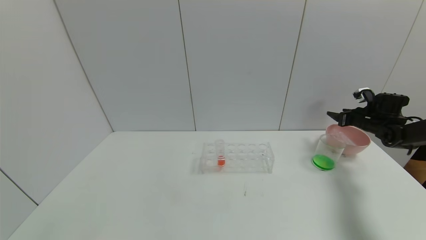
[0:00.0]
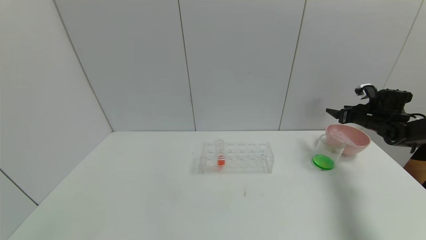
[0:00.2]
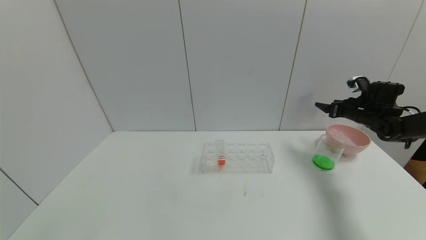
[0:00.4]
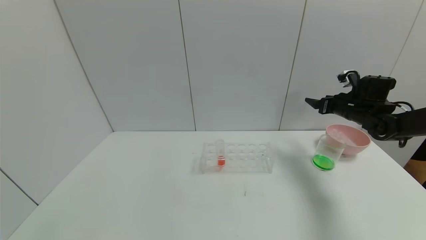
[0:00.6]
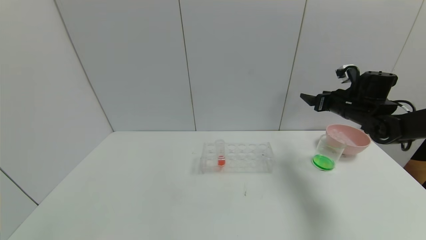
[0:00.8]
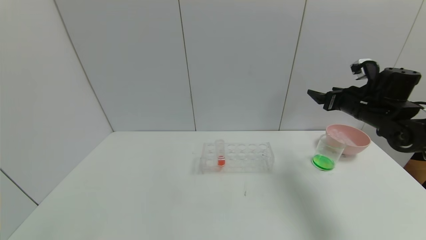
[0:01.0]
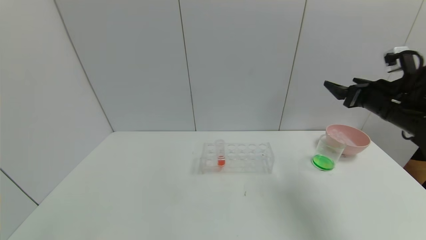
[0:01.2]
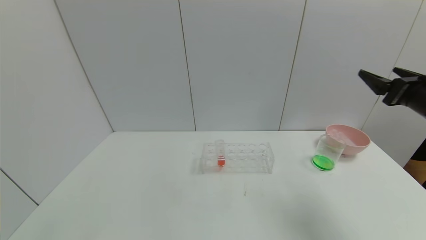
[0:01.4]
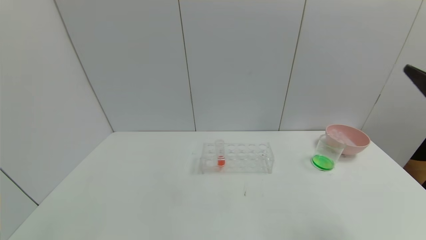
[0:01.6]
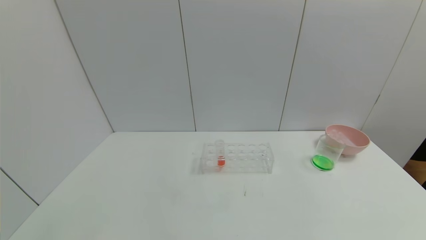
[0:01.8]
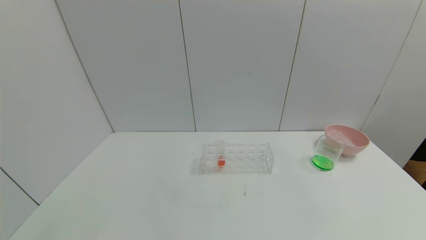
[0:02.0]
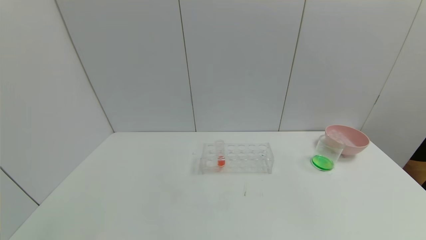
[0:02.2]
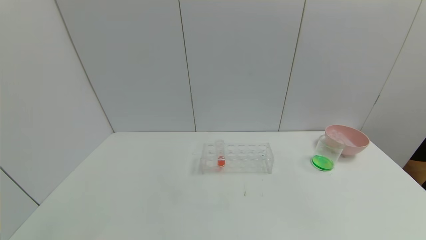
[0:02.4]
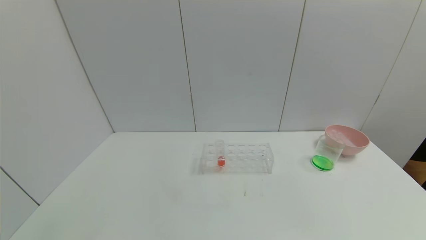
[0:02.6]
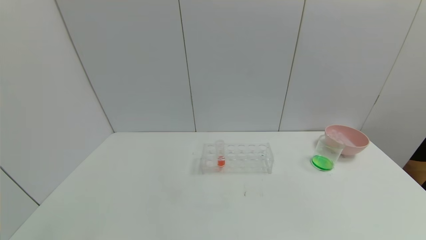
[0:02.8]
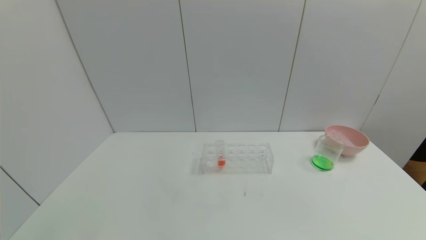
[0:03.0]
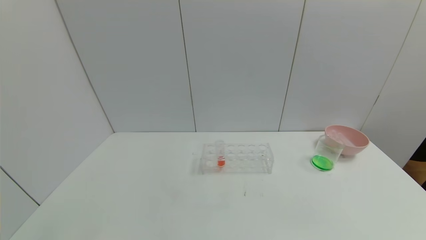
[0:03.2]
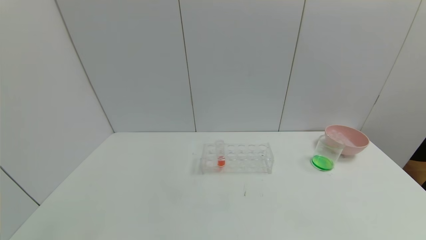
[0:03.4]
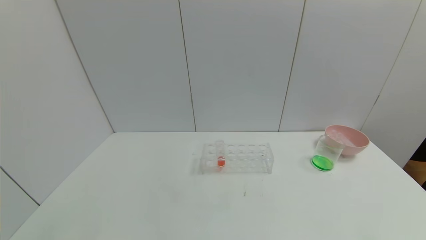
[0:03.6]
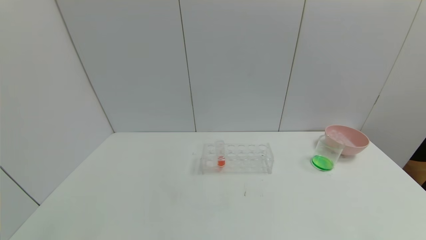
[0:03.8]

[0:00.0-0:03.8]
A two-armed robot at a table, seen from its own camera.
Task of the whole recording: pick up the test tube with yellow pigment and the test tube with blue pigment by grippers and pour them into the beaker.
0:00.0 to 0:01.2: The right gripper heads backward, to the left and upward, covering about 25 cm.
0:01.2 to 0:02.6: The right gripper moves backward, some 35 cm.
